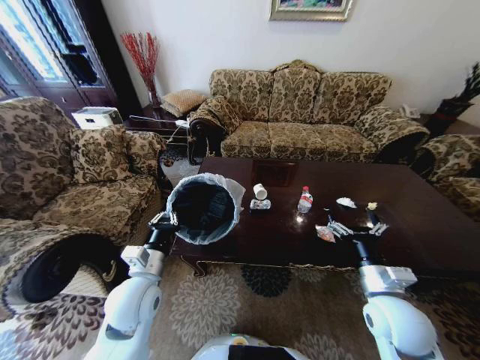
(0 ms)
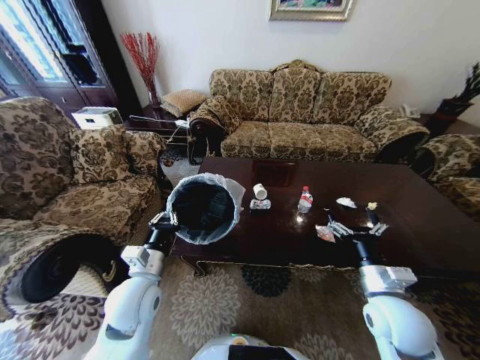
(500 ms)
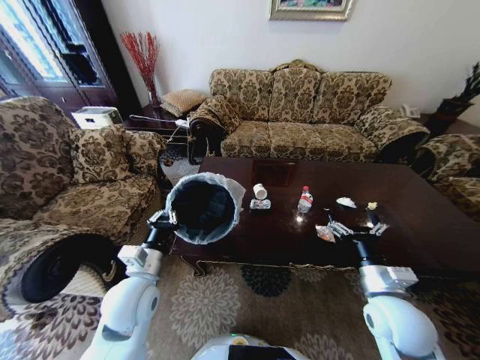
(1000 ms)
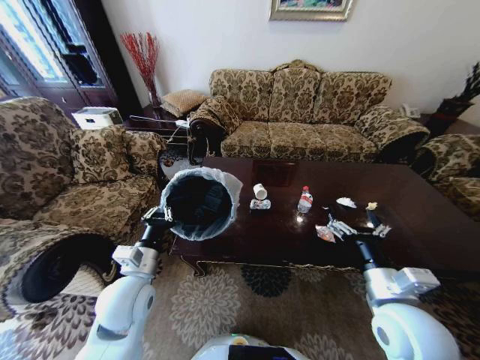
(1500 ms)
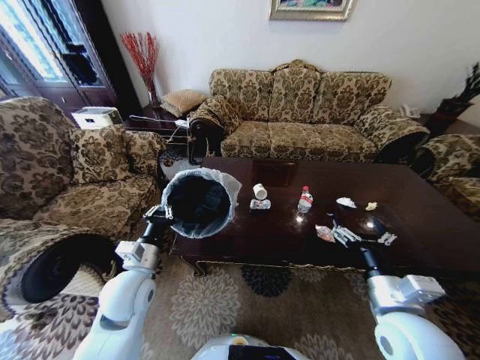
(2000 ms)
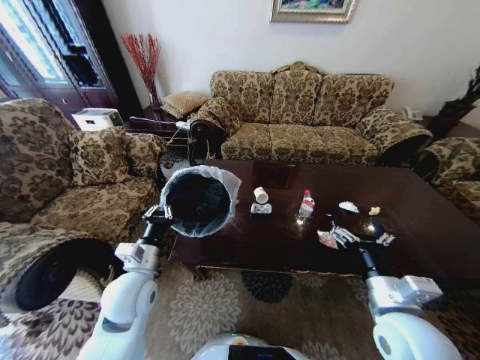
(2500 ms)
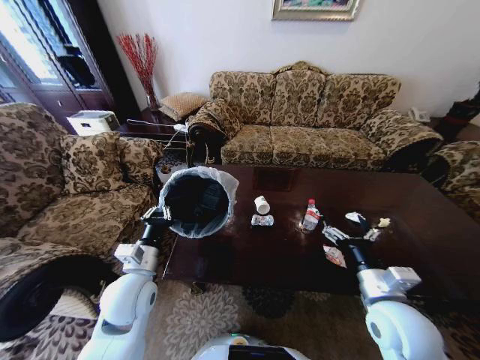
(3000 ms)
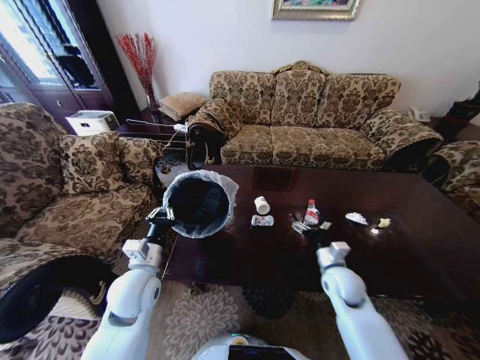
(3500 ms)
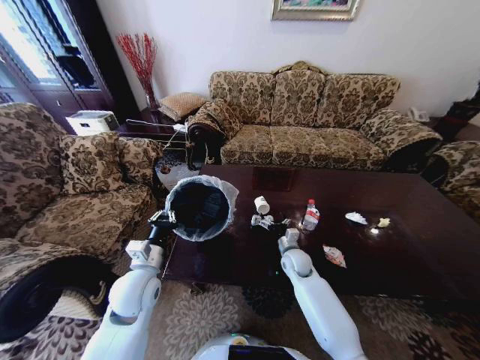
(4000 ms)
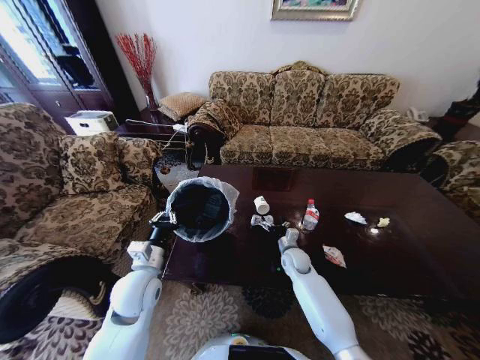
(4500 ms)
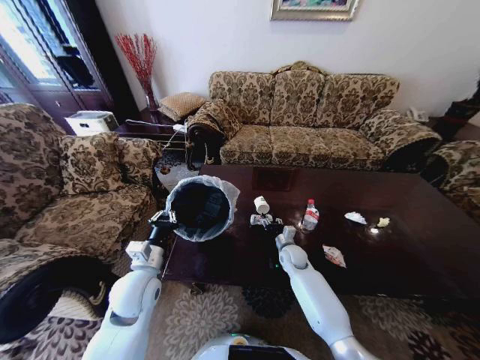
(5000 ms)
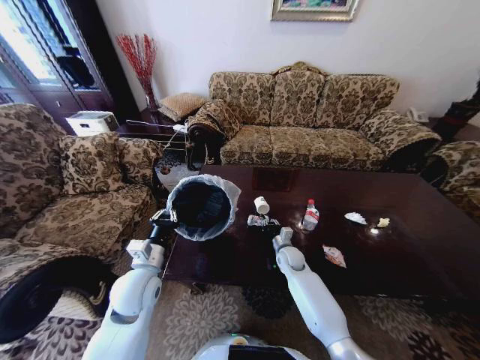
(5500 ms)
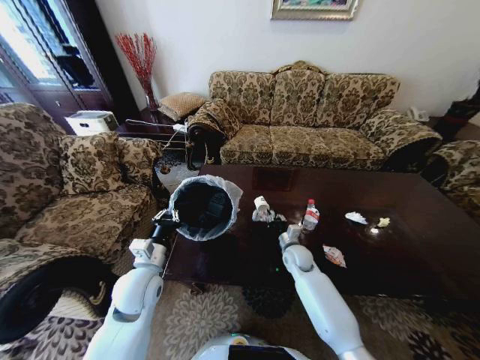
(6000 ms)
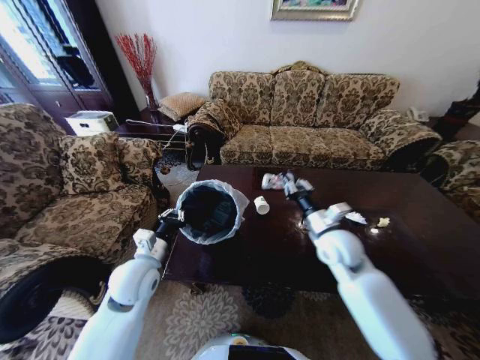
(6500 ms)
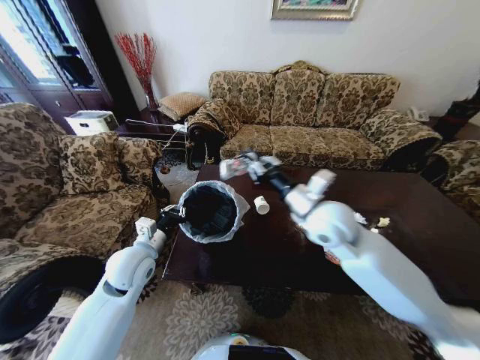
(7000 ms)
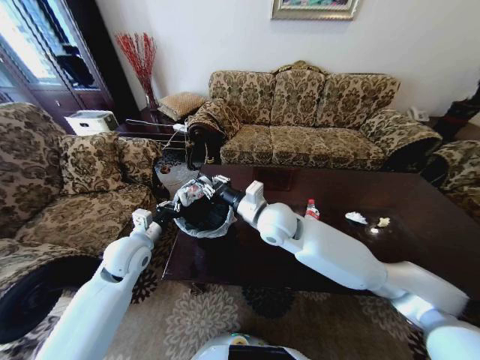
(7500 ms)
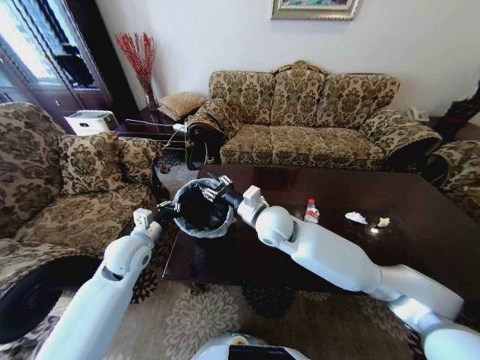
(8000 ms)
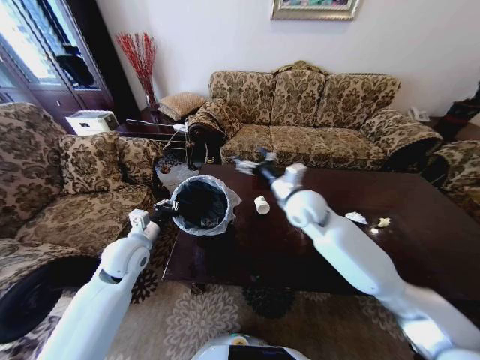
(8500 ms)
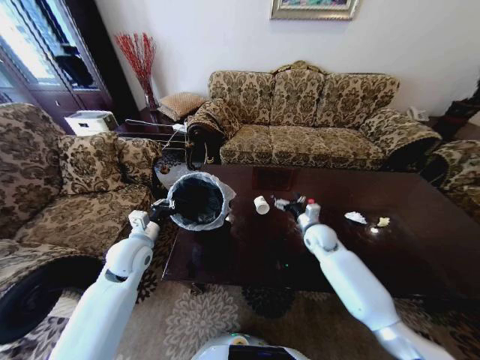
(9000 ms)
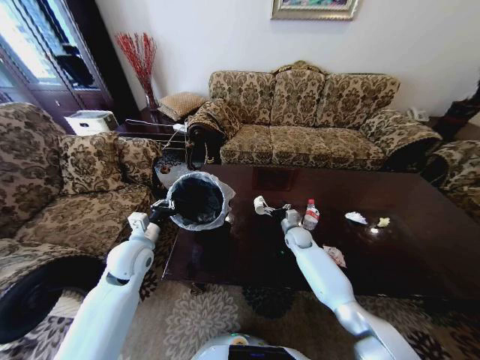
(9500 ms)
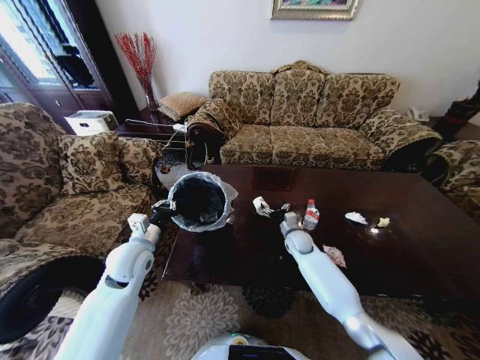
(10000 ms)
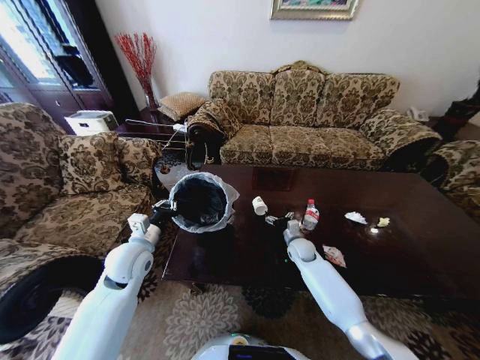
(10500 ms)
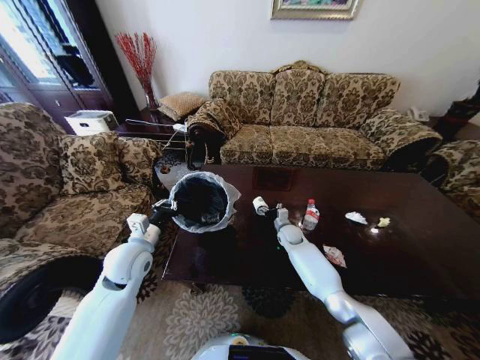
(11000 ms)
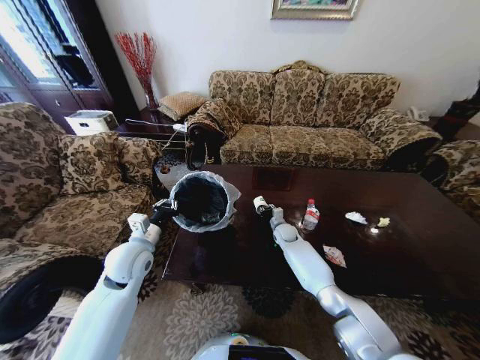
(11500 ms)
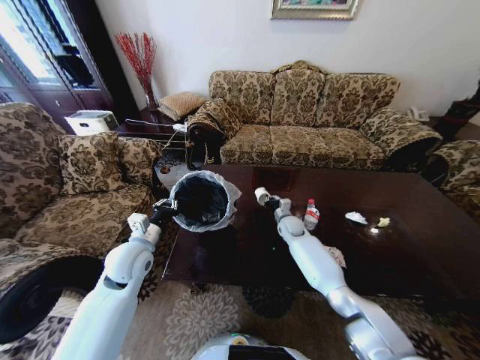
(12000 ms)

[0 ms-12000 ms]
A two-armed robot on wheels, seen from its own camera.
Task of the whole recording: Move to the front of the table and place the trash on the table into the trash bin.
0 ms to 2000 ms: The right gripper ends up some 5 cm from where it was.
2000 ms to 4000 ms: The right gripper goes some 30 cm forward and downward.
4000 ms to 6000 ms: The right gripper closes its fingers.
6000 ms to 8000 ms: The left gripper shifts some 5 cm forward, while the right gripper heads upward and to the left, covering roughly 25 cm.
8000 ms to 10000 ms: The right gripper travels downward and to the right by approximately 25 cm, and opens.
10000 ms to 12000 ms: The right gripper goes about 5 cm forward, and closes up.

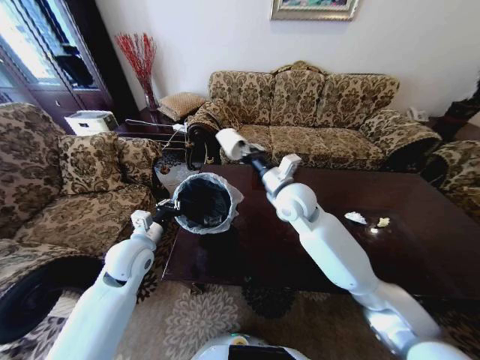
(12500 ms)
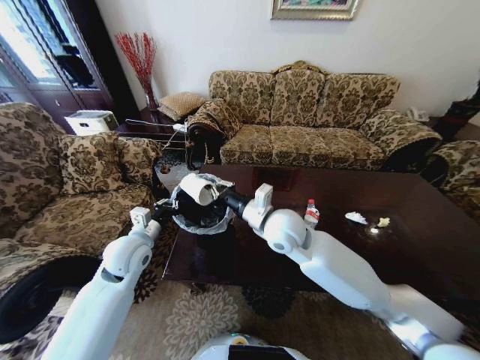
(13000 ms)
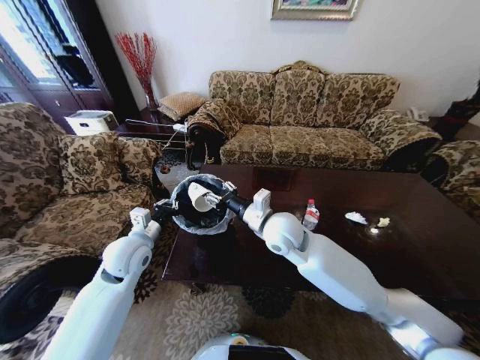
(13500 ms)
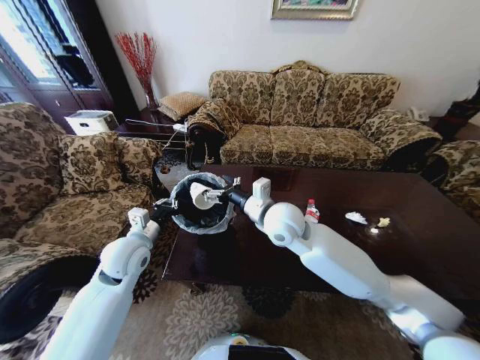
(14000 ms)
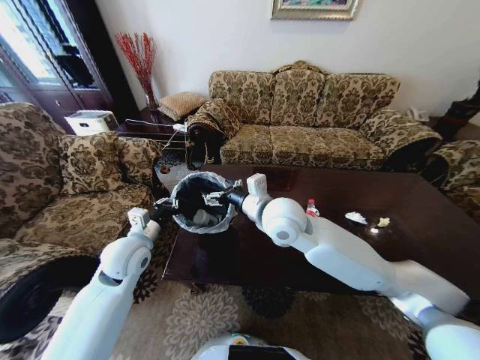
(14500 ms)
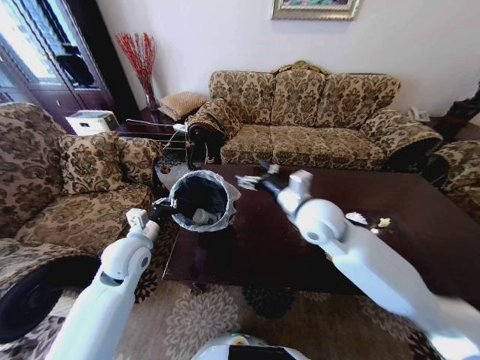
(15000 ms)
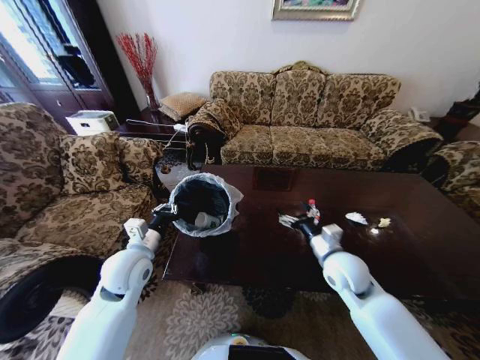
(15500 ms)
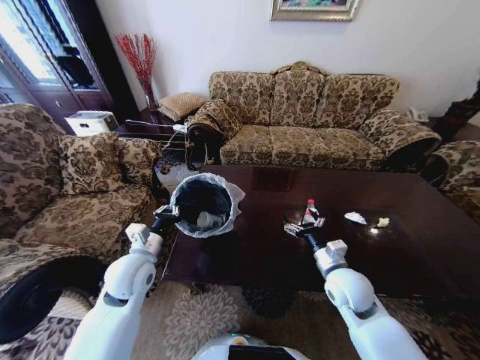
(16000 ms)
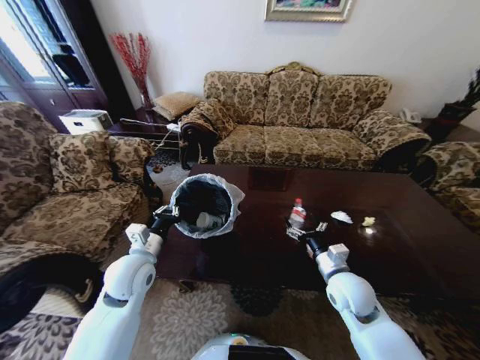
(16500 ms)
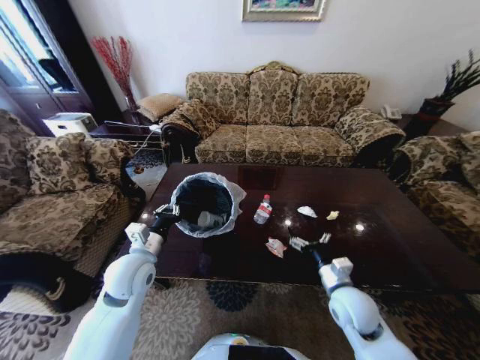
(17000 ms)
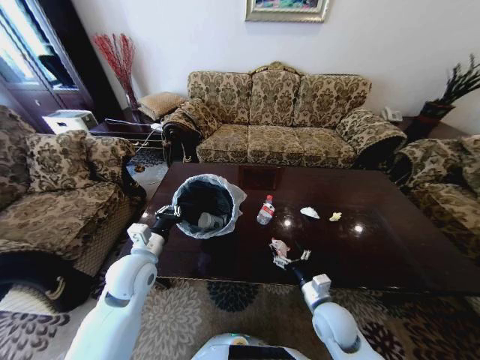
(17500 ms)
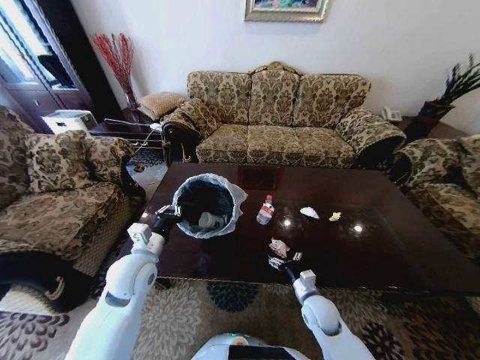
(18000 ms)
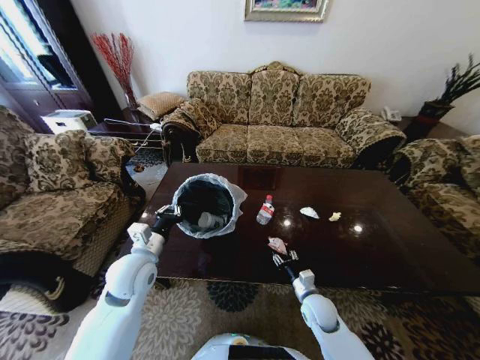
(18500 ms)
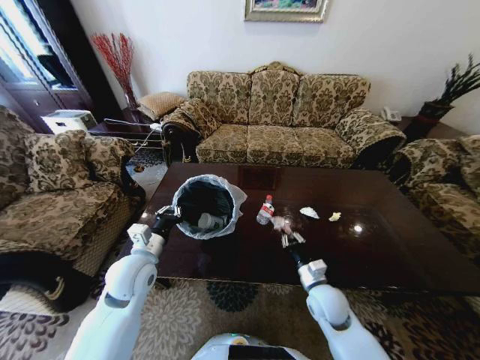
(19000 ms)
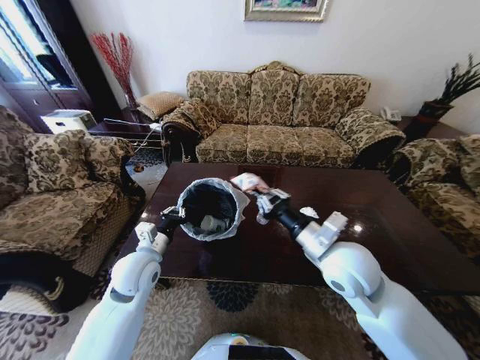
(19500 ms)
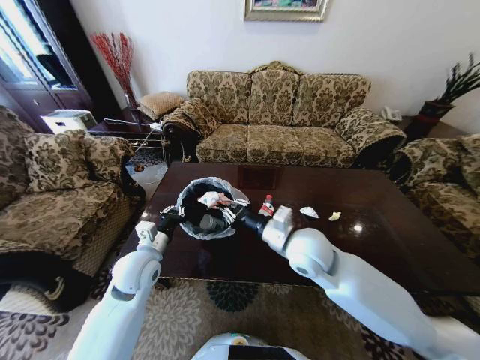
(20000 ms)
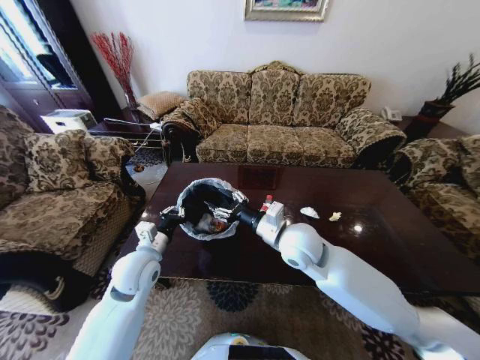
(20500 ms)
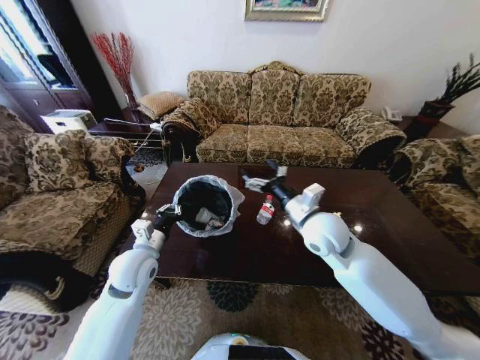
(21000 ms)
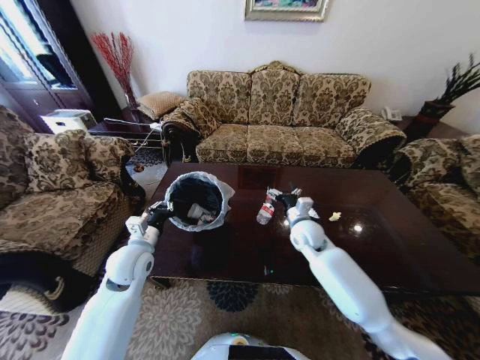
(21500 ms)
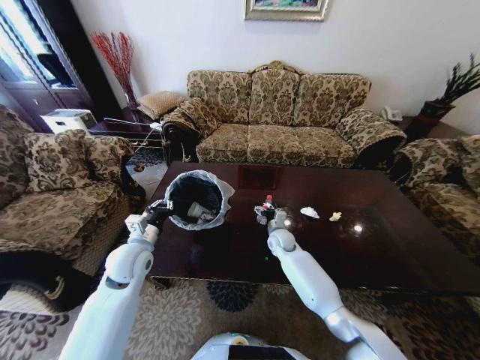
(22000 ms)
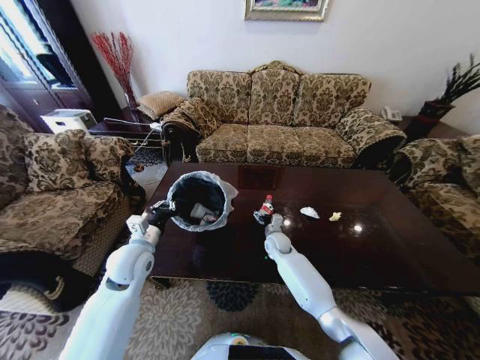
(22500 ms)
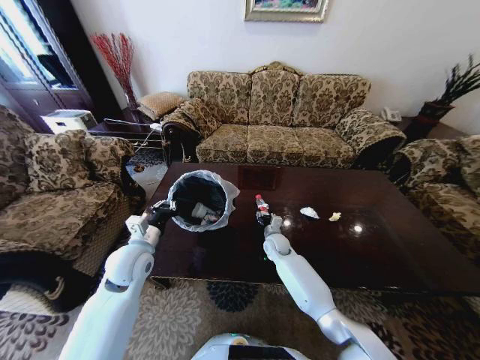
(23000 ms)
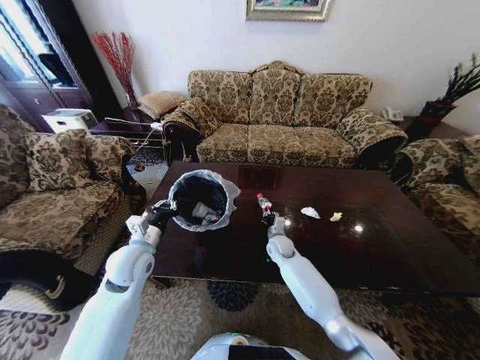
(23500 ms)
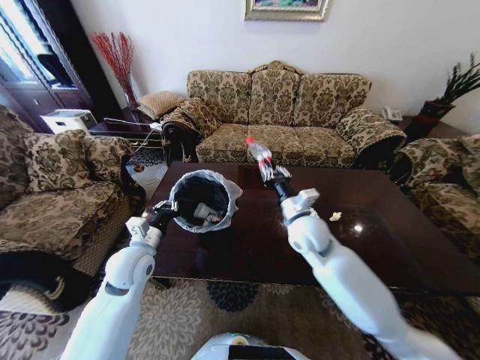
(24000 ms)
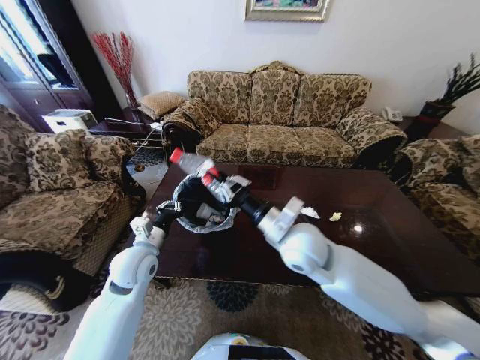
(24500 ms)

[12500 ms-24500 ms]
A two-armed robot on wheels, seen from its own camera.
Task of the whole recording: Move to the front of the table and place the trash on the table into the trash bin.
12500 ms to 14500 ms: The right gripper goes approximately 5 cm backward, and opens.
14500 ms to 16500 ms: The right gripper travels to the right, downward and backward by about 30 cm.
16500 ms to 18500 ms: The right gripper shifts about 15 cm downward, and closes its fingers.
18500 ms to 20500 ms: The right gripper heads upward and to the left, covering some 30 cm, and closes, then opens again.
20500 ms to 22500 ms: The right gripper travels downward and forward by about 30 cm, and opens up.
22500 ms to 24500 ms: The right gripper shifts some 30 cm upward and backward, and closes up.

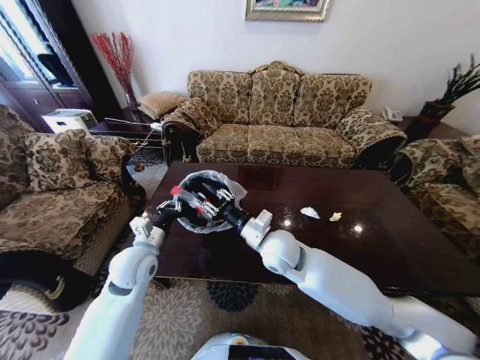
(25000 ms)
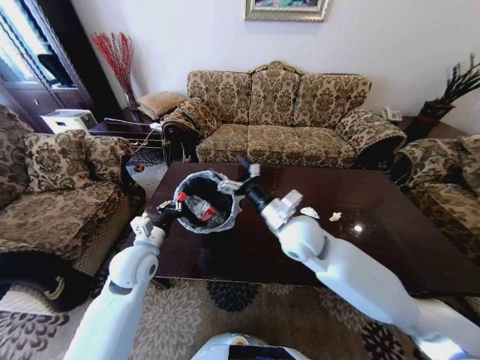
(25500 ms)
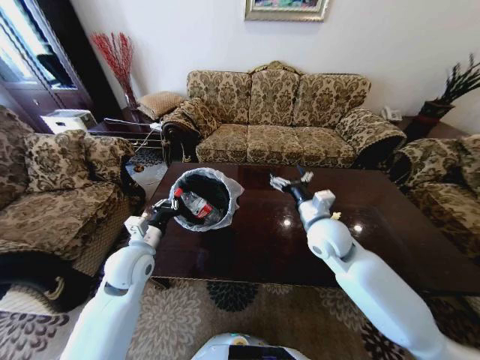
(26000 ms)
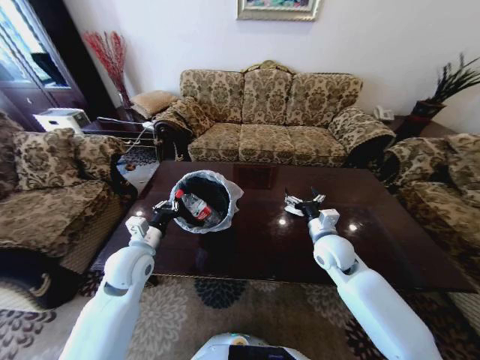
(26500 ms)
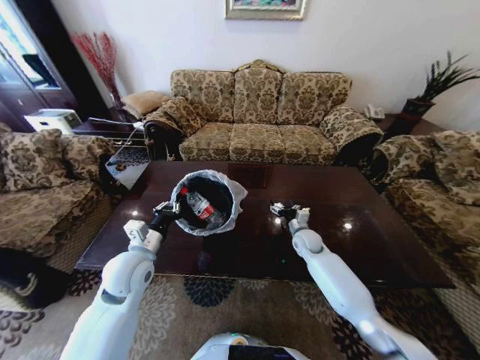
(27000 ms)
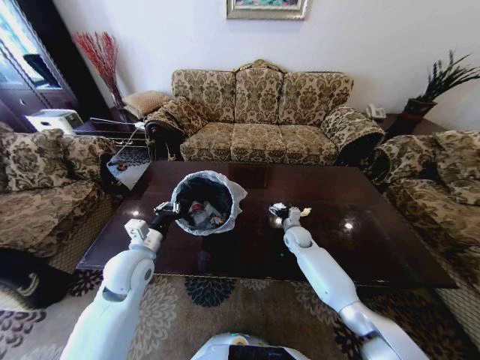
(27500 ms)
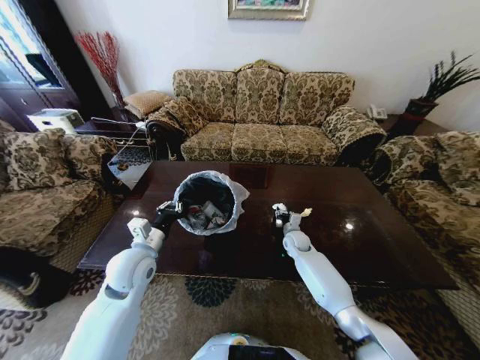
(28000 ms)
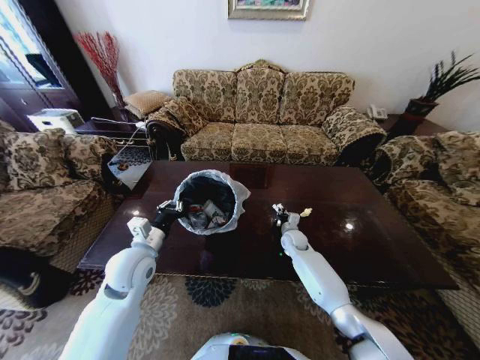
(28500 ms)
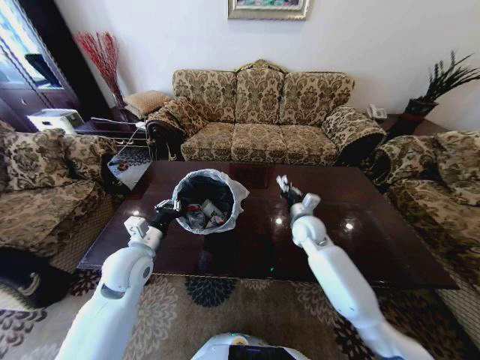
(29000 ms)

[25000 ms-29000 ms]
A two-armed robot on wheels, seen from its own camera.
Task of the whole recording: Move to the front of the table and place the trash on the table into the trash bin.
25000 ms to 27000 ms: The right gripper moves downward, to the right and forward, about 25 cm, and opens its fingers.
27000 ms to 29000 ms: The right gripper is displaced upward by roughly 10 cm, and closes.
